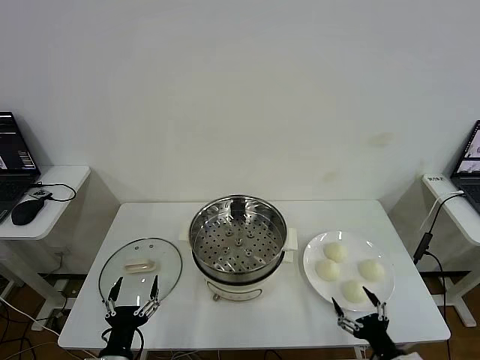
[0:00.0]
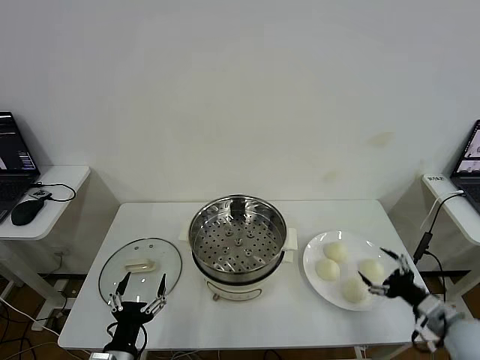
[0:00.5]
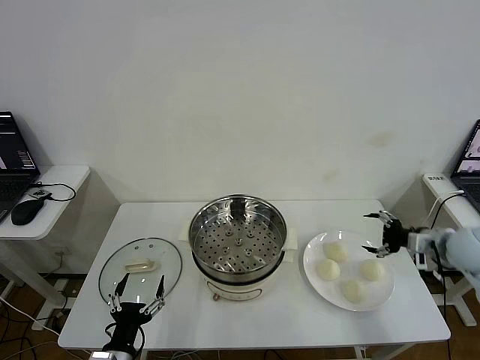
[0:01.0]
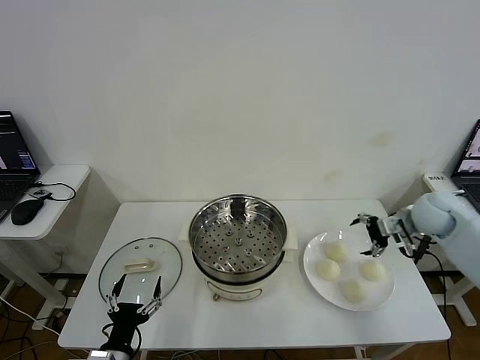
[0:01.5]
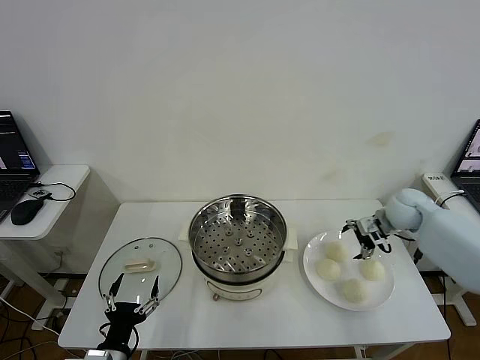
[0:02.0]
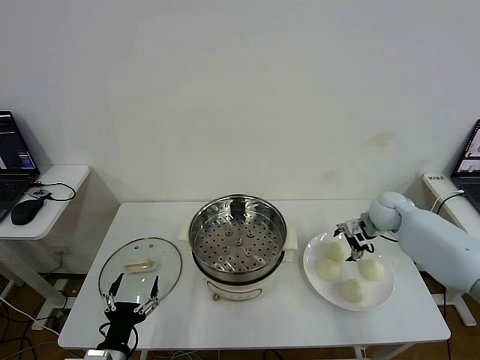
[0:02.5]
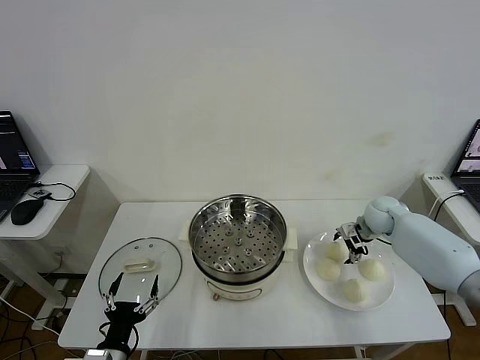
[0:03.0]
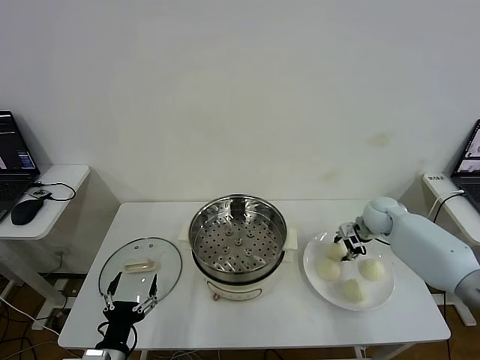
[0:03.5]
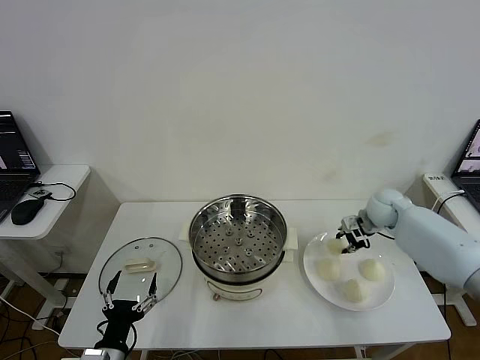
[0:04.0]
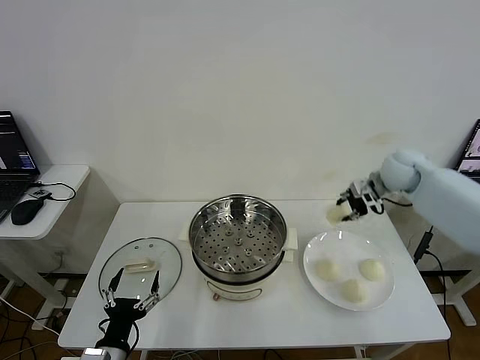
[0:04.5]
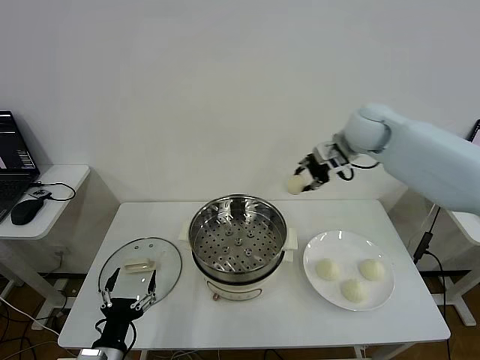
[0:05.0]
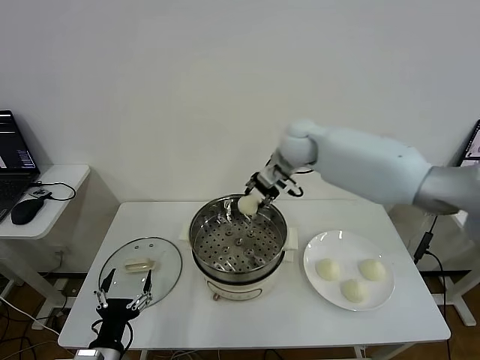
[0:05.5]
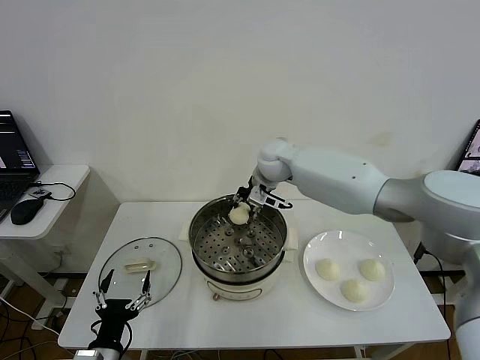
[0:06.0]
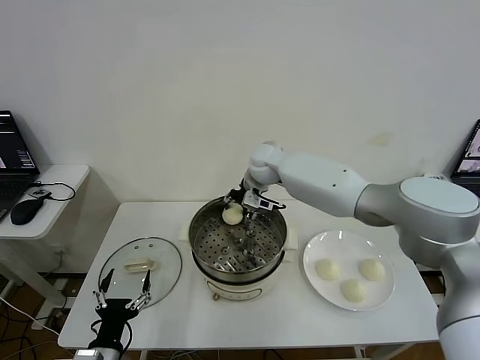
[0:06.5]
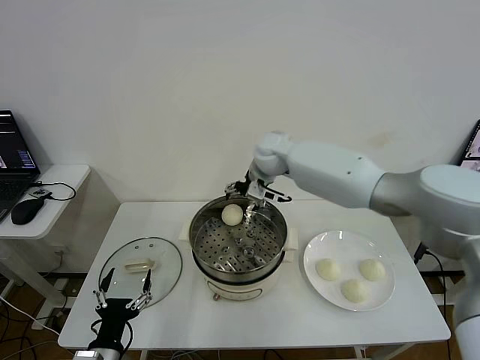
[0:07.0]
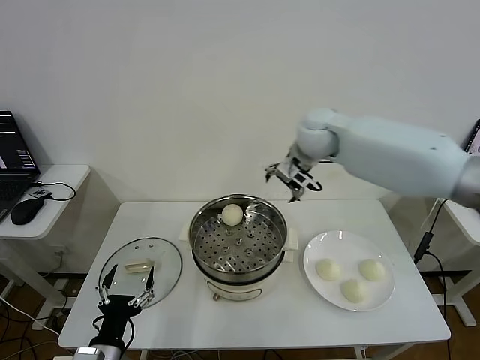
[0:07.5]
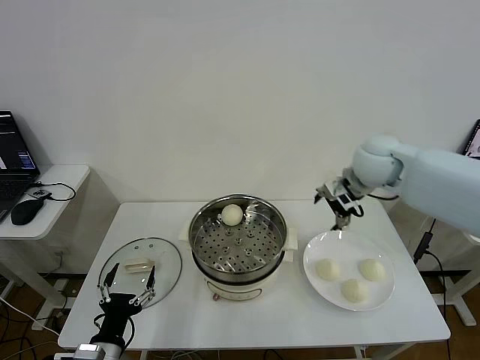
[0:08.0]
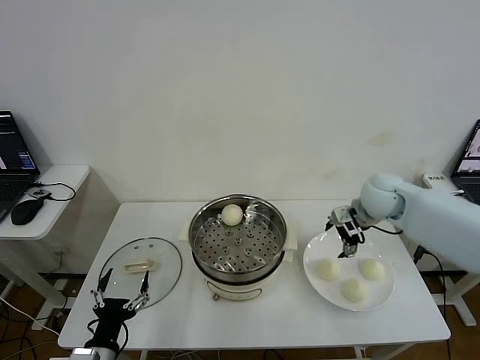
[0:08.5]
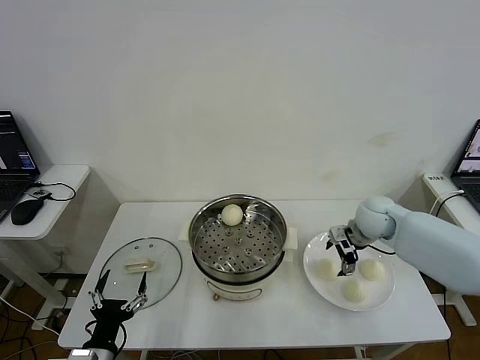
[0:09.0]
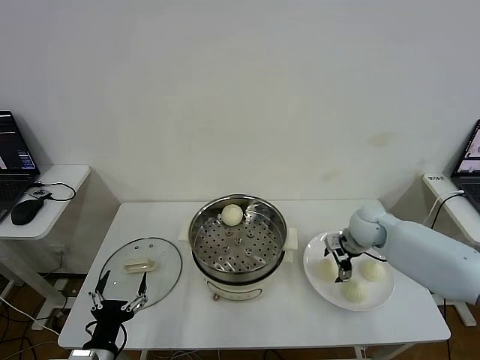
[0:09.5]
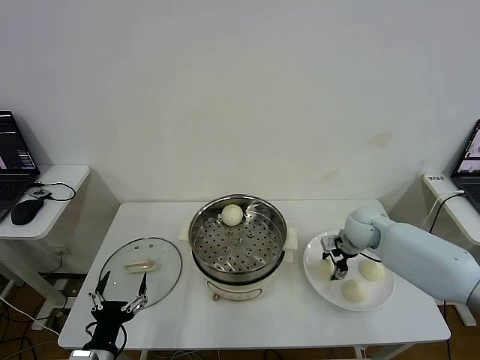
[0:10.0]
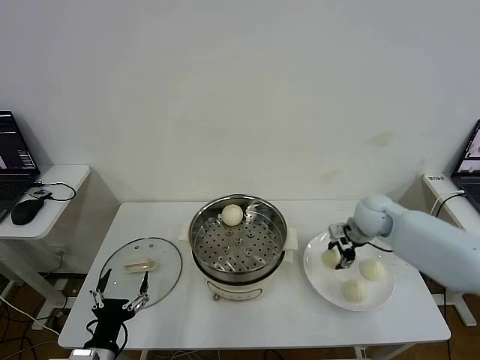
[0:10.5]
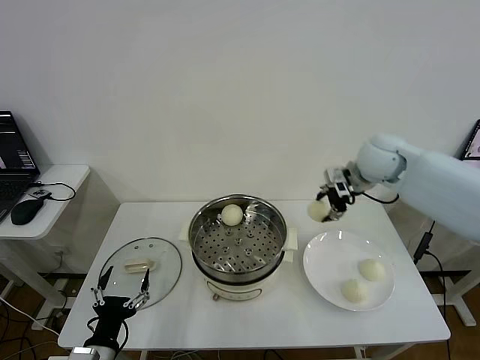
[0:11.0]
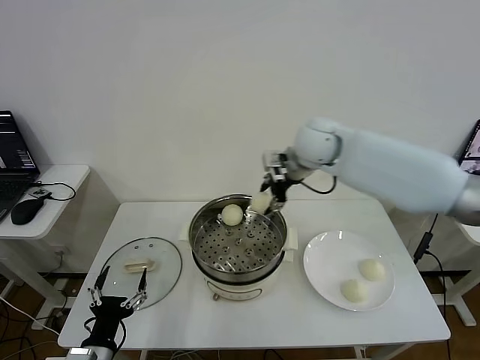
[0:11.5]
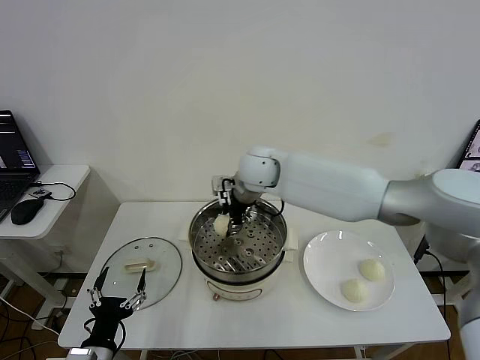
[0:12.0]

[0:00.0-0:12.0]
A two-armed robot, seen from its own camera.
Step, 0.0 to 3.0 s: Grasp the baozi in the plate with right gripper.
Step, 4.0 to 6.5 s: Place the baozi on the steamer with right gripper.
Step, 7.0 to 10.0 s: Grasp the baozi in the plate with right gripper.
2.0 to 4.0 s: The right gripper closes its fingers.
4.0 to 6.0 s: The right gripper travels to the left by approximately 30 cm.
6.0 to 8.0 s: The right gripper heads to the right and backward, covering some 25 cm, and opens its fingers.
8.0 to 10.0 s: The right gripper heads downward, covering about 20 cm, and closes.
10.0 to 12.0 s: The right gripper moves to the left and upward, approximately 30 cm.

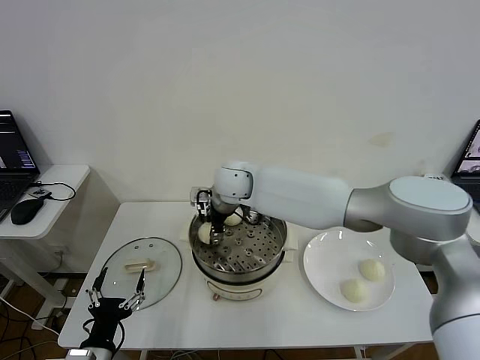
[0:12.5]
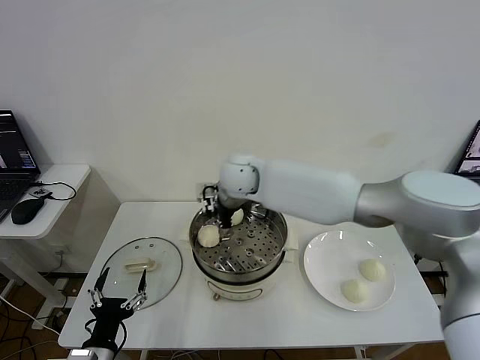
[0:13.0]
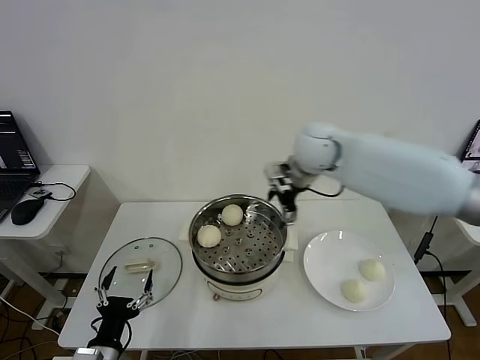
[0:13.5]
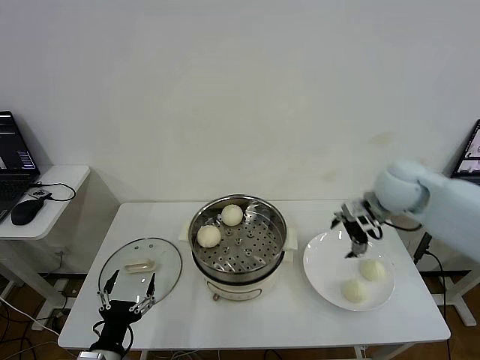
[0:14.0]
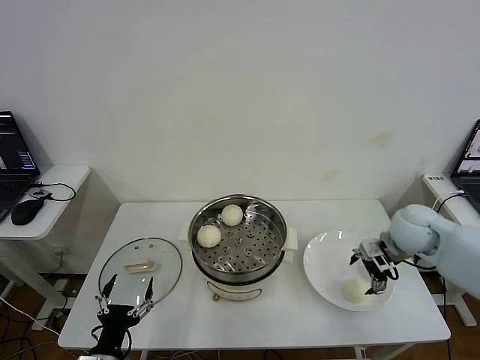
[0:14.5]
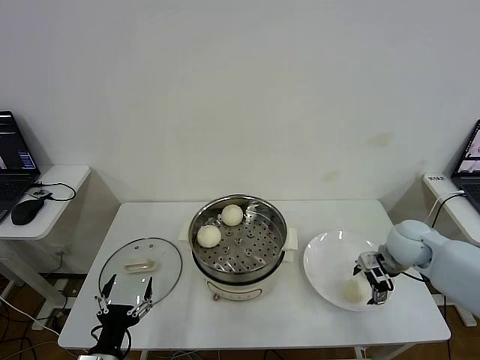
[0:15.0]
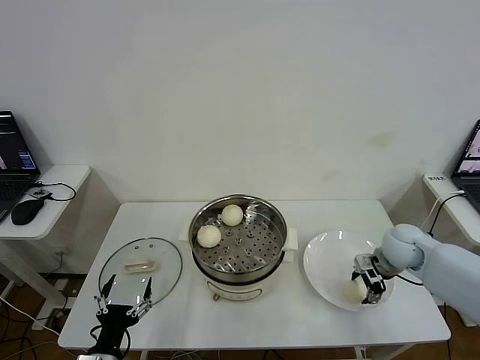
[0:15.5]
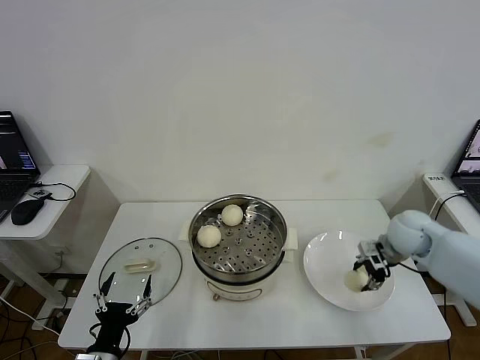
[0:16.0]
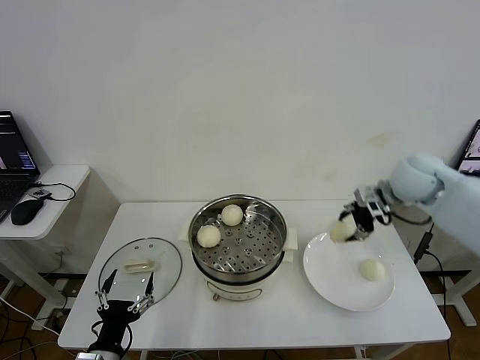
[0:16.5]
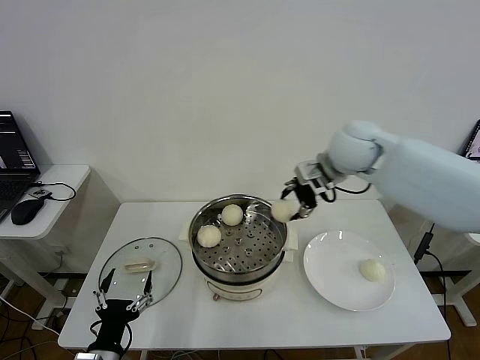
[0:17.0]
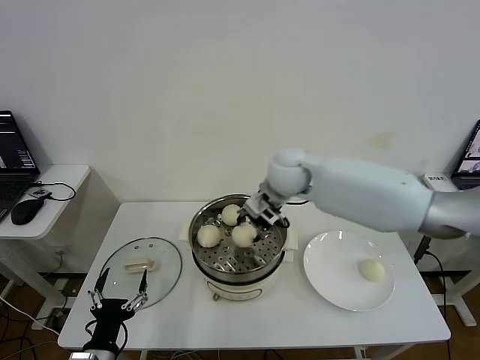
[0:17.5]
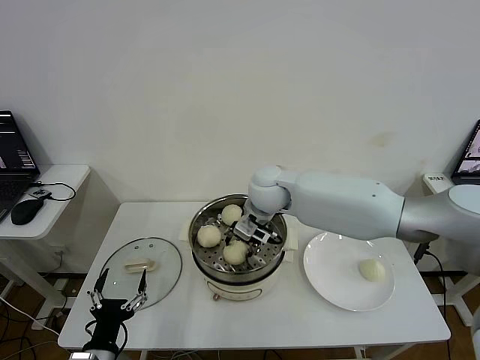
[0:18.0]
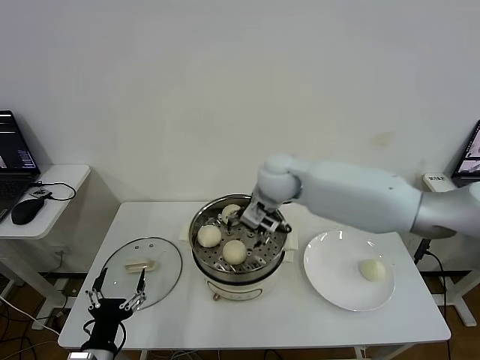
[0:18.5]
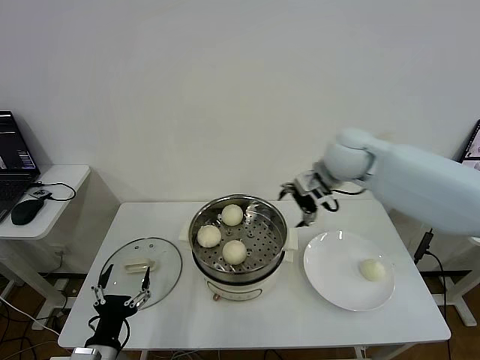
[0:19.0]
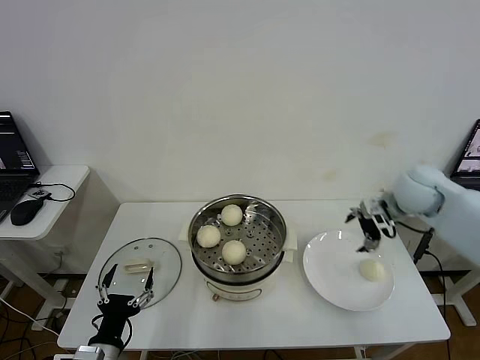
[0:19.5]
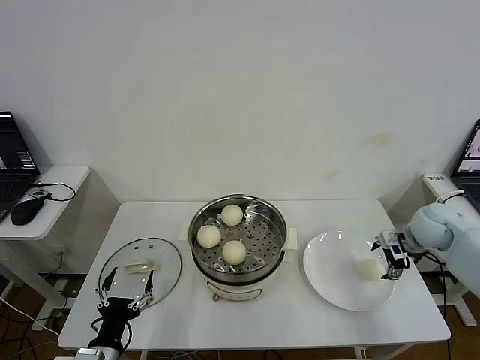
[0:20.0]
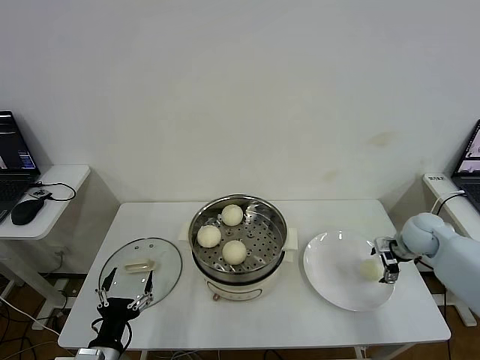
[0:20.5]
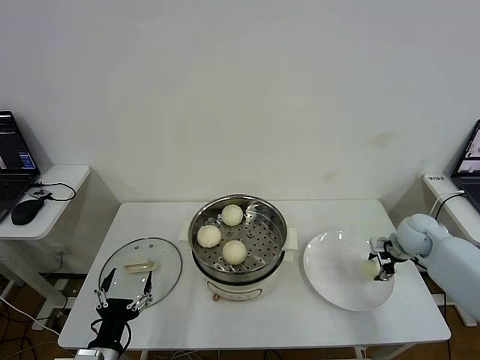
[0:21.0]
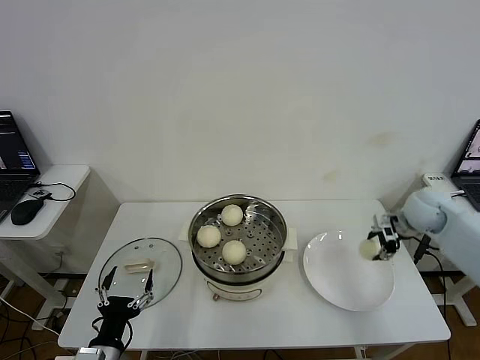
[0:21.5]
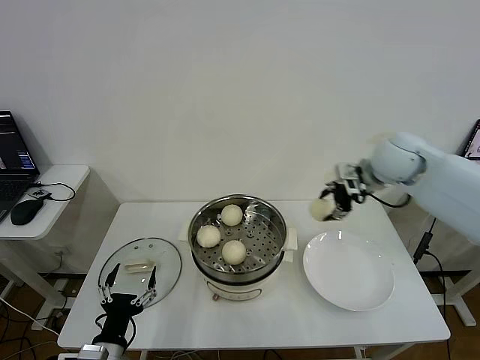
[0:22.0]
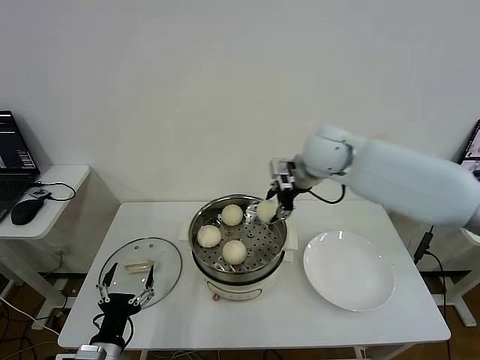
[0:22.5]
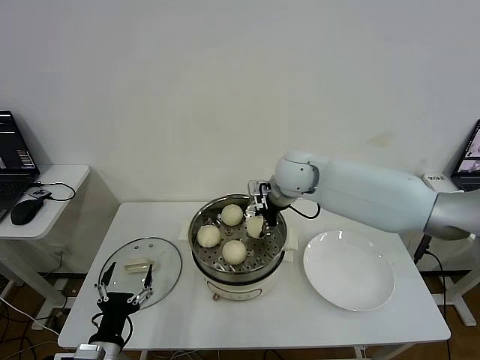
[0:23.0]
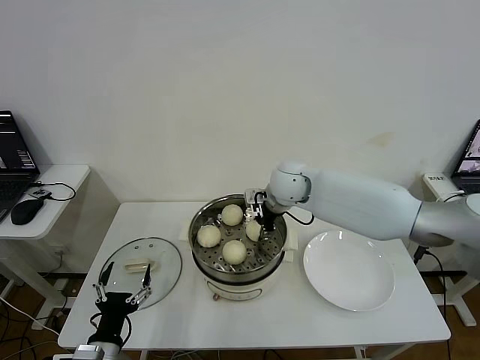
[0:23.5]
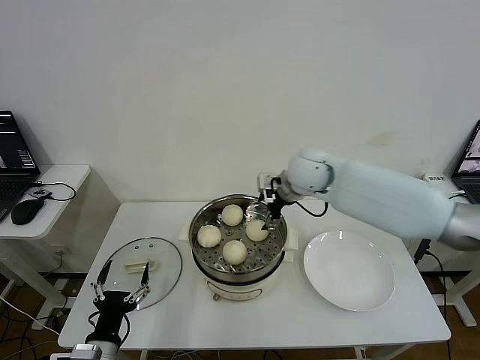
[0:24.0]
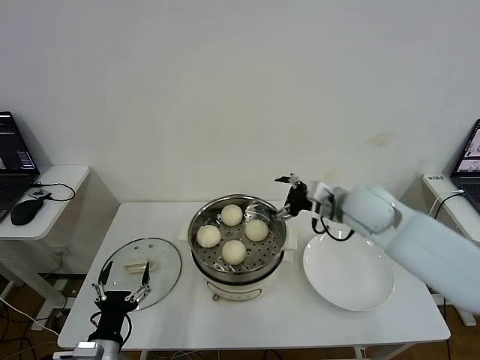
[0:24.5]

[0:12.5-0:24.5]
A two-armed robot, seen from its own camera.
Step, 13.0 to 15.5 s: Grasp the baozi in the plate with right gripper.
Step, 16.0 to 18.0 s: Place the baozi on the steamer with right gripper.
Step, 18.5 to 21.0 s: Grasp the baozi in the plate with right gripper.
Step, 21.5 to 23.5 s: Place the baozi on the steamer with right gripper.
12.5 to 14.5 s: The right gripper goes roughly 40 cm to the right, and opens its fingers.
14.5 to 16.5 s: The right gripper shifts about 15 cm upward and forward, and closes up.
16.5 to 18.5 s: The right gripper heads to the left, covering roughly 25 cm, and opens up.
18.5 to 20.5 s: The right gripper heads to the right and downward, covering roughly 40 cm.
20.5 to 22.5 s: The right gripper moves to the left and upward, roughly 35 cm, and closes its fingers.
22.5 to 24.5 s: The right gripper heads to the right, backward and downward, covering roughly 15 cm, and opens up.

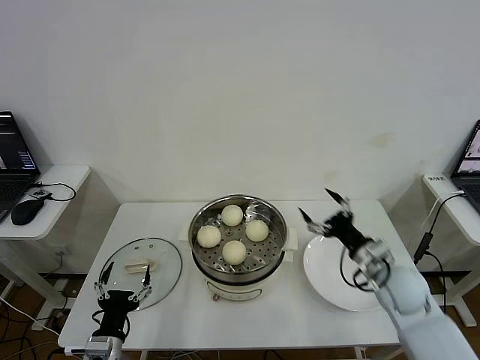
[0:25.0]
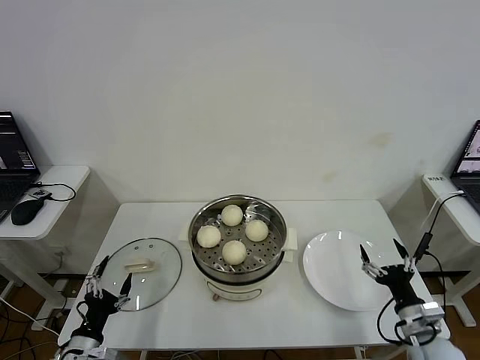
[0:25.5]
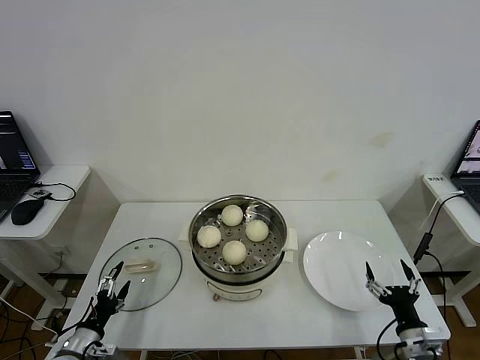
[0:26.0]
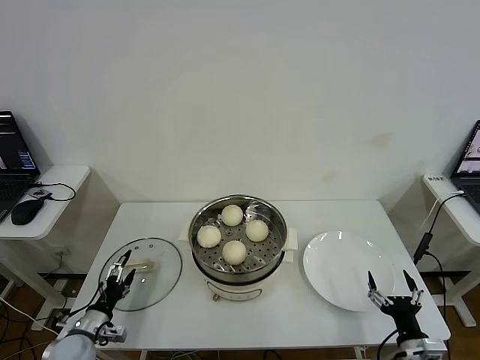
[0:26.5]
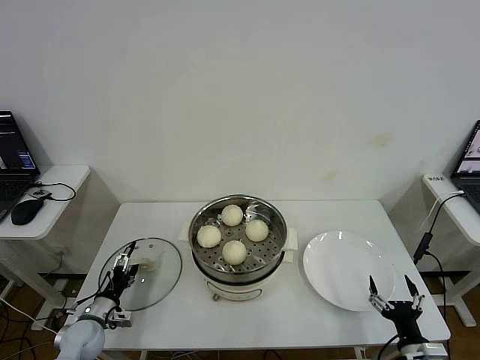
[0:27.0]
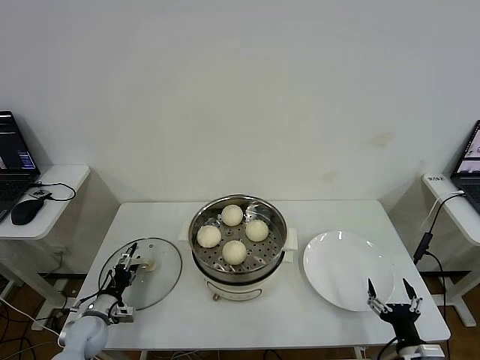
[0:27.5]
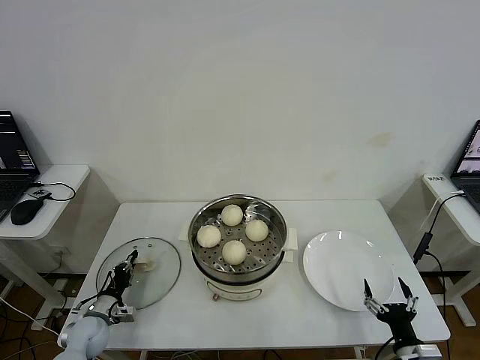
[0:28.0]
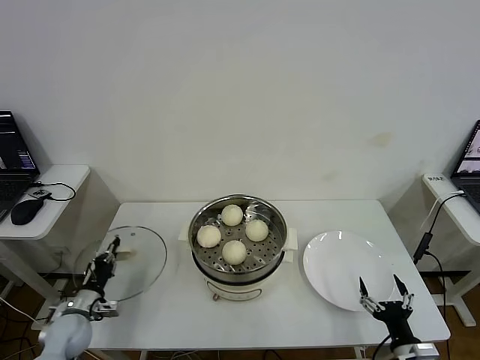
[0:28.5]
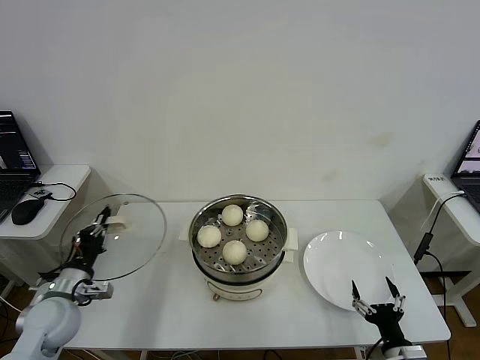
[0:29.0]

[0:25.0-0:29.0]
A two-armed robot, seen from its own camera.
Step, 25.0 to 28.0 s: Grasp the pot lid with left gripper.
25.0 to 27.0 s: The right gripper moves backward and downward, some 20 cm, while the left gripper shifts some 20 cm forward, to the left and downward.
27.0 to 29.0 s: The left gripper moves upward, approximately 15 cm, and closes its fingers.
